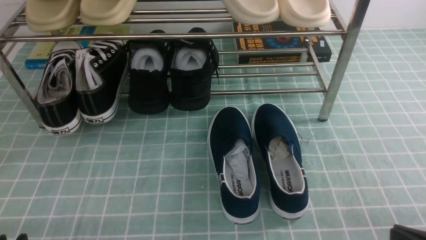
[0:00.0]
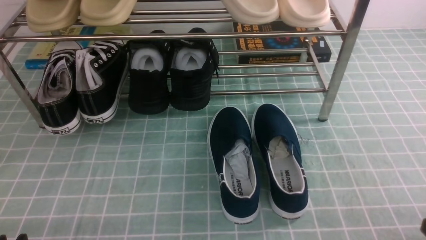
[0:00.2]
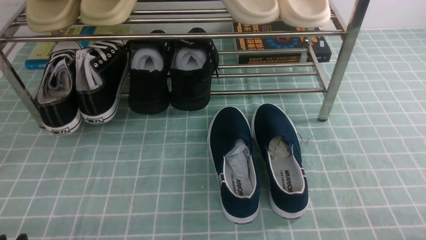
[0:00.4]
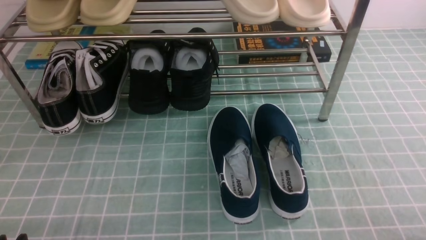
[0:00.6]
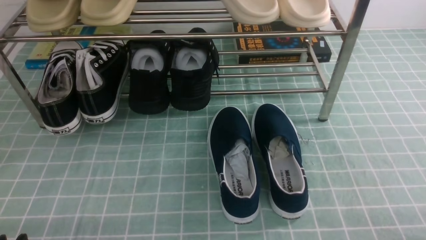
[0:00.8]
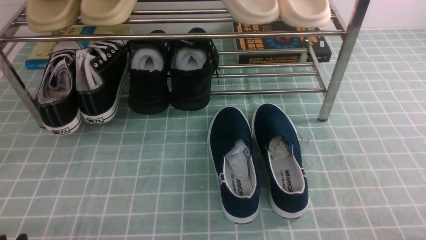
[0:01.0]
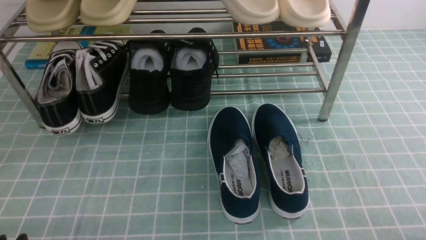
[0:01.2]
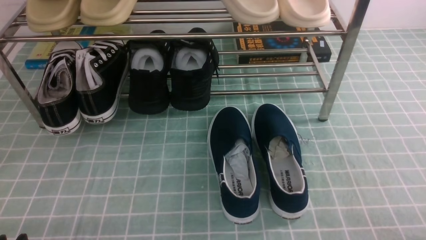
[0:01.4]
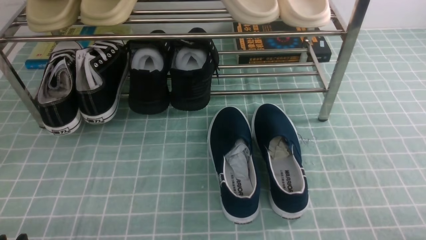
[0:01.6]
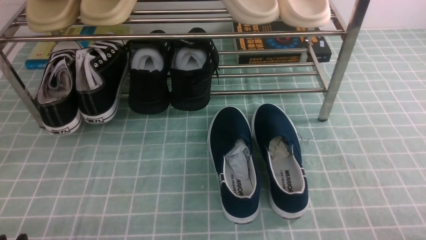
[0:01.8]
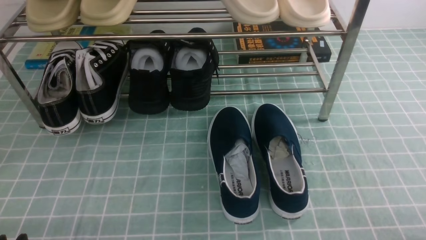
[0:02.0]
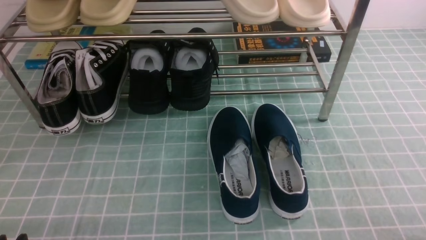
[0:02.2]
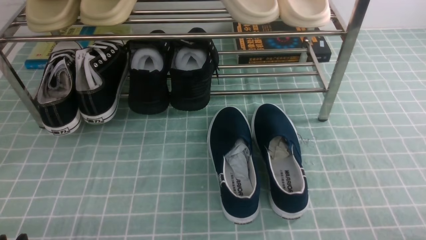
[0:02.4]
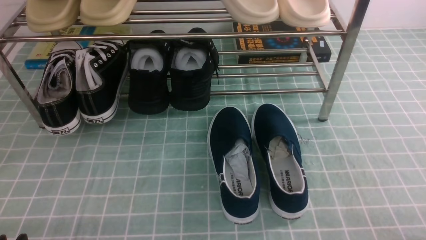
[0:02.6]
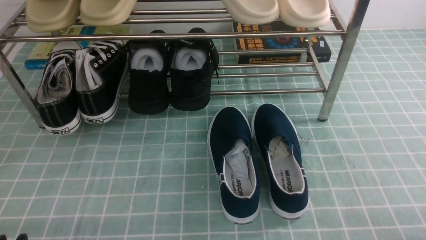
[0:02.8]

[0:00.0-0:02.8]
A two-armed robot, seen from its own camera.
0:01.4 to 0:02.8: Both grippers stay put.
